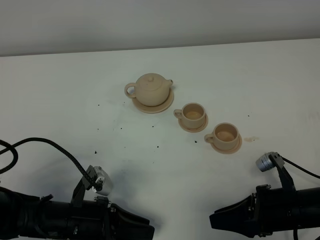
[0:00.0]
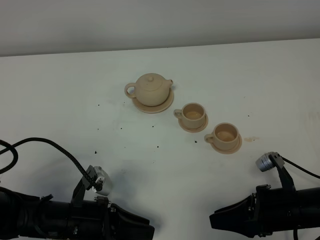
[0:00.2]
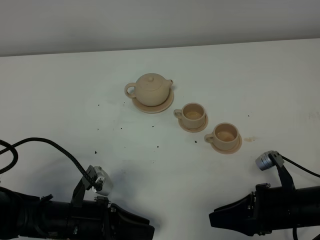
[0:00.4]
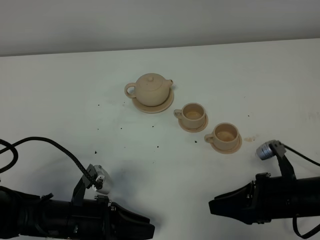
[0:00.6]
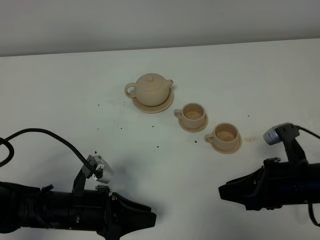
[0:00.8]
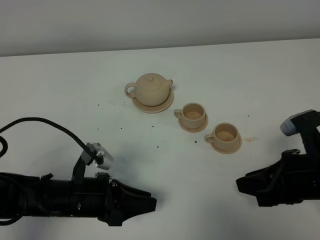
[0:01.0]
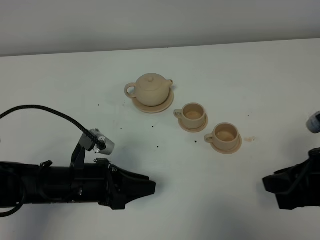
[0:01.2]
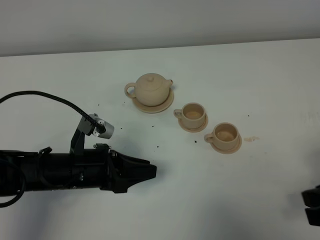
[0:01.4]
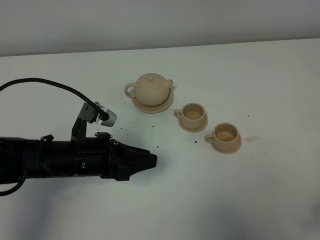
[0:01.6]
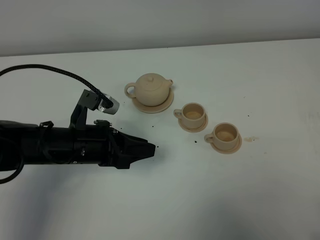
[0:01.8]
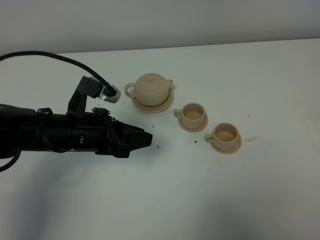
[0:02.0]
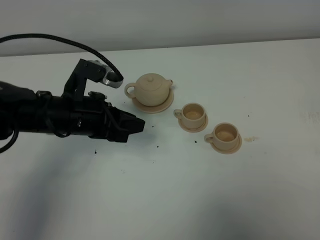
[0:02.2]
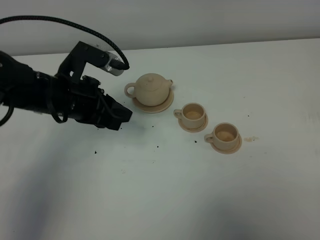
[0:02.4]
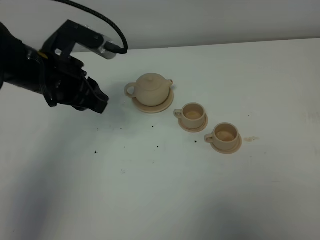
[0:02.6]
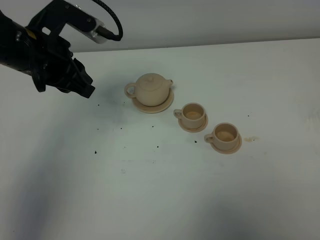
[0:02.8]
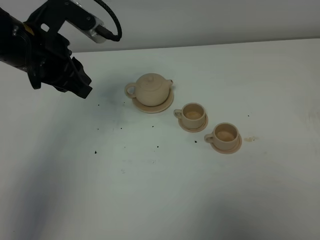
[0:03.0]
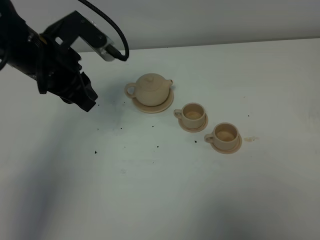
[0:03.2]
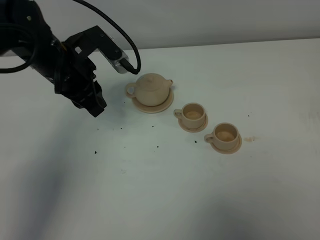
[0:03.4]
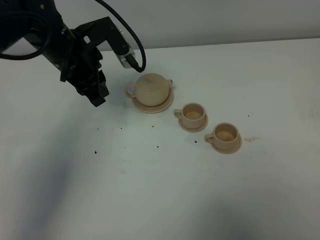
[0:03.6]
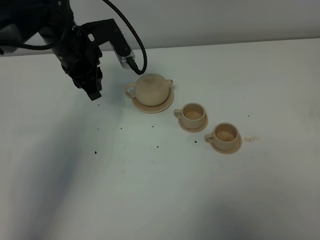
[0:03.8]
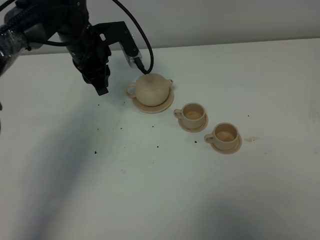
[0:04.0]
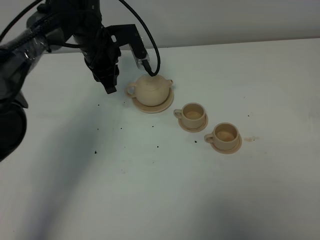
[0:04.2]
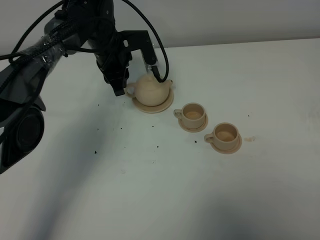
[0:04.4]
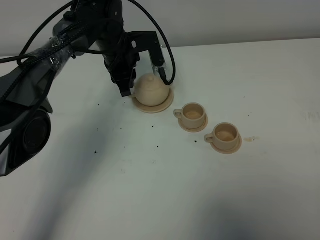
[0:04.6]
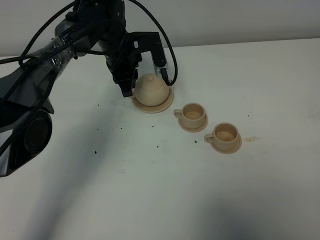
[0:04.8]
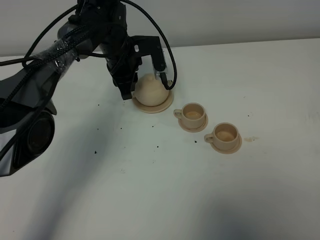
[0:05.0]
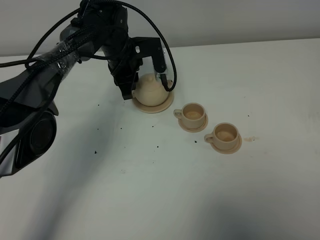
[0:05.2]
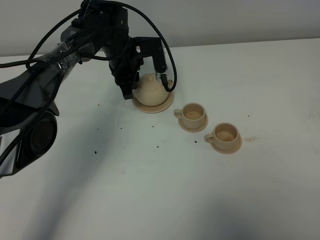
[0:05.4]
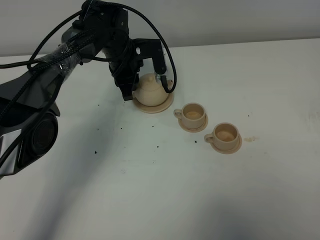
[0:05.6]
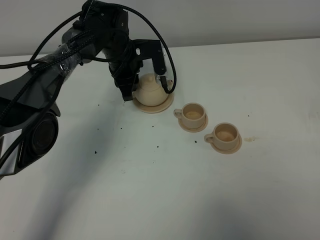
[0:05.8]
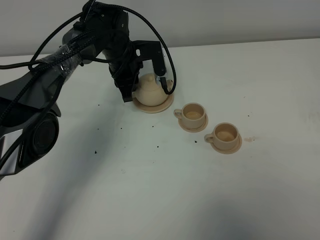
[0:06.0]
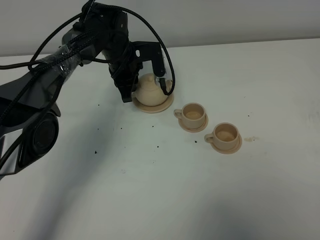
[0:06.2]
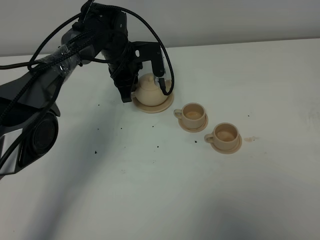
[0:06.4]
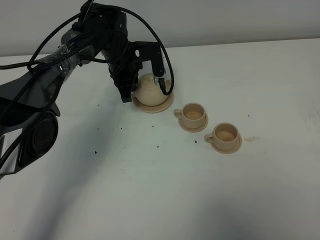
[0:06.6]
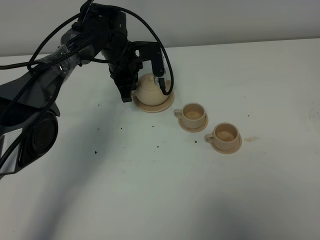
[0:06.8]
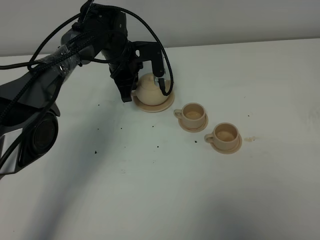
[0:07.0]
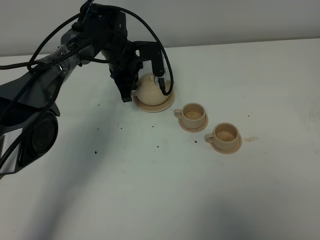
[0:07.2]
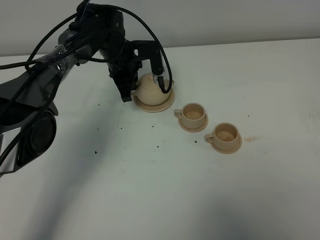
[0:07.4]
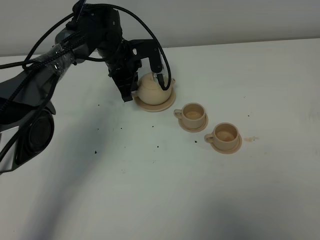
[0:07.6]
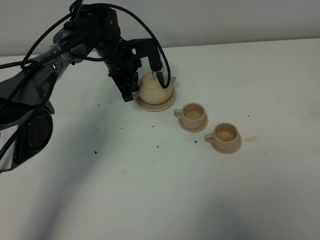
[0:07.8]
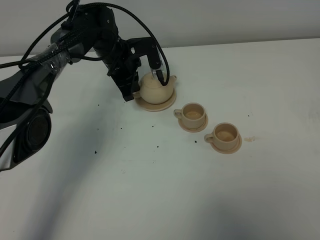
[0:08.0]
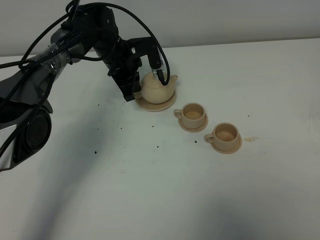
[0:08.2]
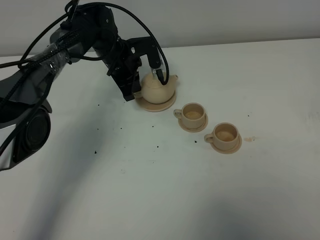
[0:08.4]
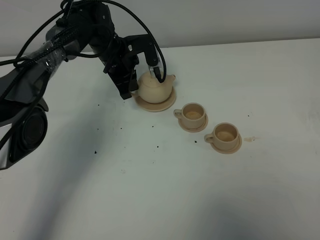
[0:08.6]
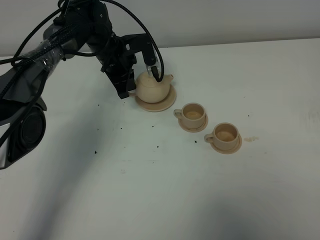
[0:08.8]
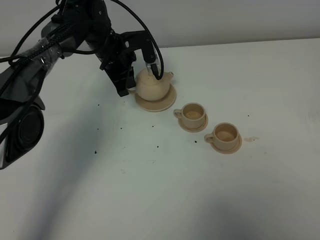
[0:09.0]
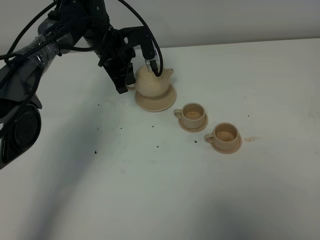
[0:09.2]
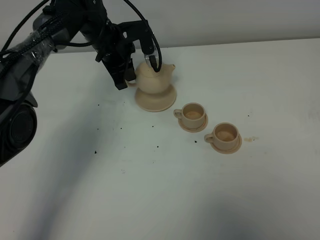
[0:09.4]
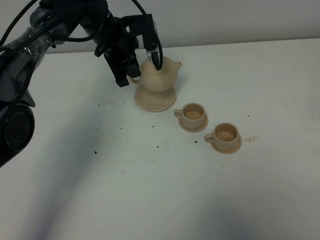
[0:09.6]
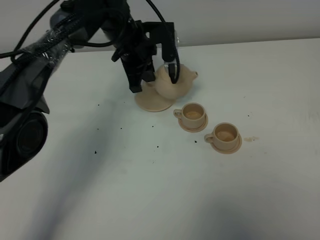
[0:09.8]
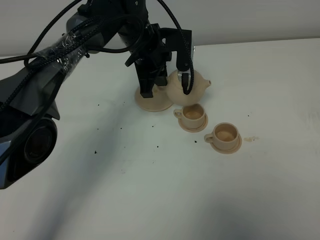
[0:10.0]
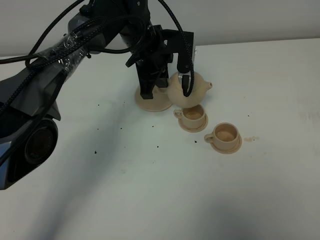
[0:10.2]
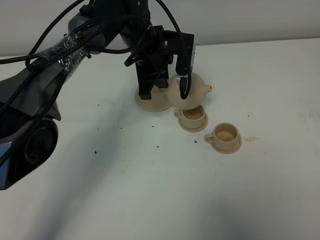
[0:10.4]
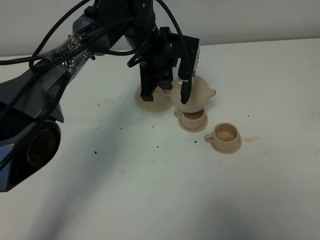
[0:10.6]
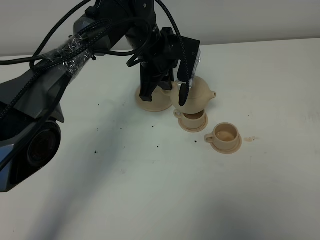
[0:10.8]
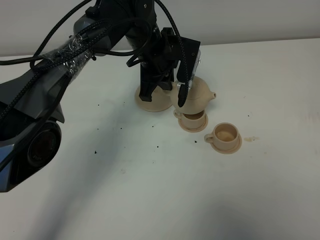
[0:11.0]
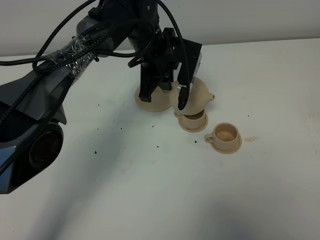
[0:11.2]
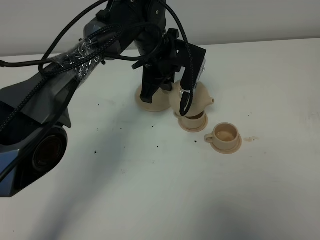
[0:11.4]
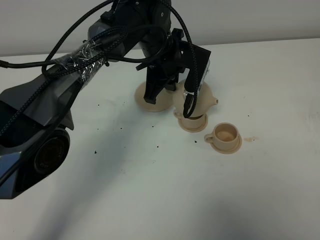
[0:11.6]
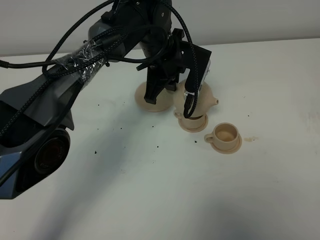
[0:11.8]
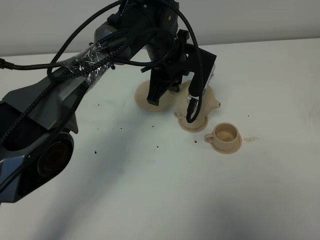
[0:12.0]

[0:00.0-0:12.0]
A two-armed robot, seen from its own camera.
Task of the whole recording: grasp the brown teapot and pour the tea into the two brown teacups one by one, put the brown teapot back in its original place.
Step, 0:00.0 to 0:08.8: Pick up the teapot with the left gripper.
0:00.0 to 0:01.6: The left gripper moves forward and upward, some 10 cm, while the right gripper moves upward, to the right and backward, about 20 cm.
0:01.6 to 0:03.0: The left gripper goes roughly 20 cm upward and forward; the right gripper moves backward, approximately 5 cm.
0:03.0 to 0:04.4: The left gripper is displaced forward, downward and to the right by approximately 20 cm.
0:04.4 to 0:06.0: The grippers stay close to where they were, moving slightly.
0:06.0 to 0:07.6: The left gripper closes.
0:07.6 to 0:09.0: There are only small adjustments of the grippers.
0:09.0 to 0:10.4: The left gripper heads to the right and backward, covering about 10 cm.
0:10.4 to 0:12.0: The right gripper closes its fingers.

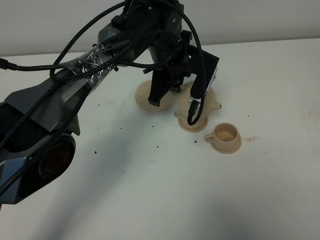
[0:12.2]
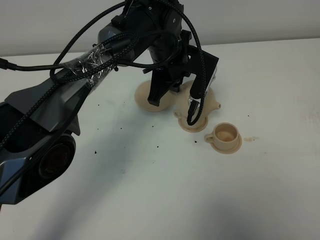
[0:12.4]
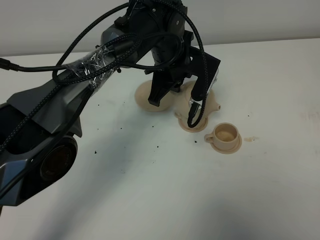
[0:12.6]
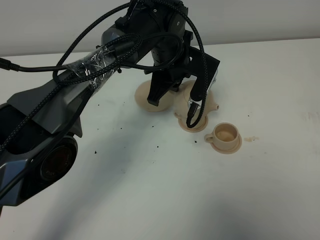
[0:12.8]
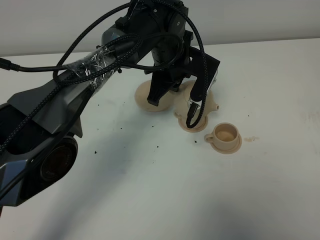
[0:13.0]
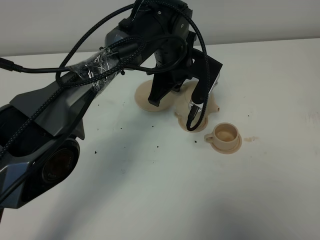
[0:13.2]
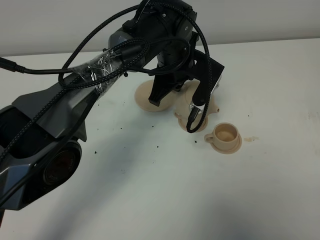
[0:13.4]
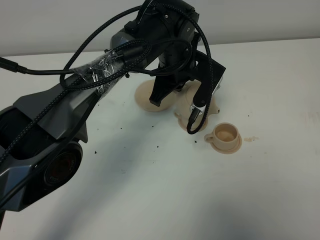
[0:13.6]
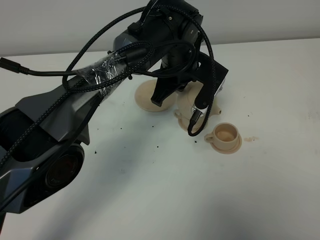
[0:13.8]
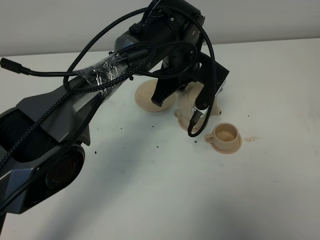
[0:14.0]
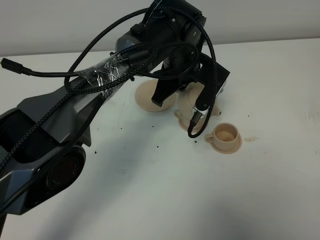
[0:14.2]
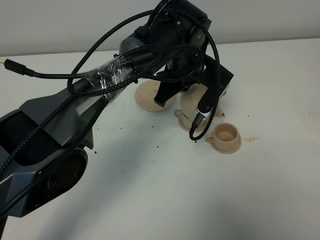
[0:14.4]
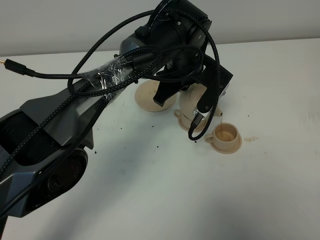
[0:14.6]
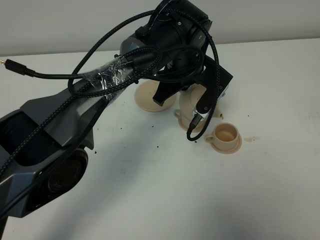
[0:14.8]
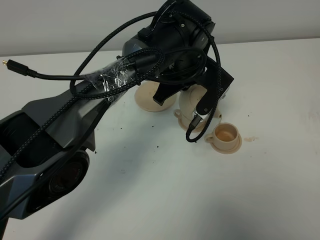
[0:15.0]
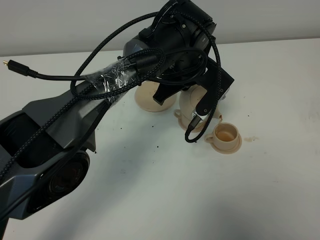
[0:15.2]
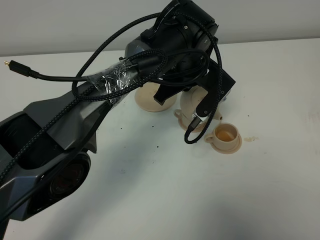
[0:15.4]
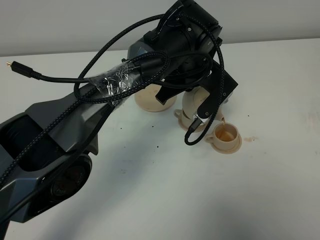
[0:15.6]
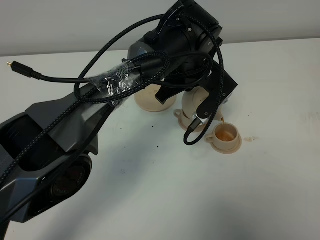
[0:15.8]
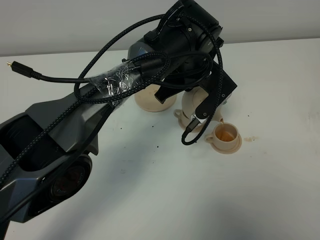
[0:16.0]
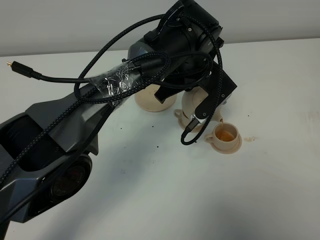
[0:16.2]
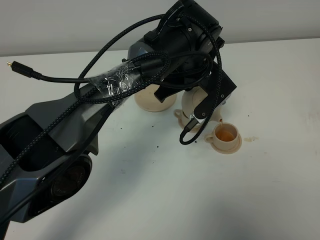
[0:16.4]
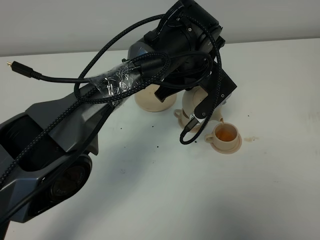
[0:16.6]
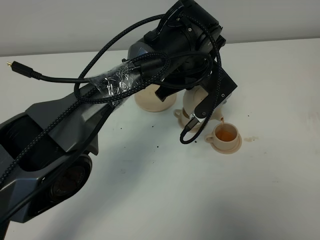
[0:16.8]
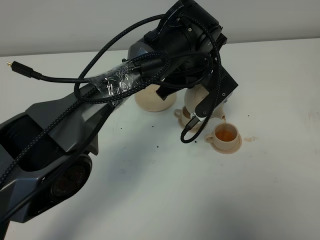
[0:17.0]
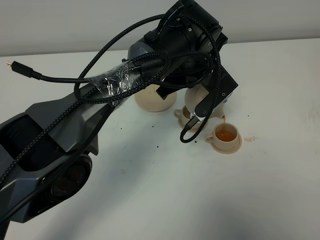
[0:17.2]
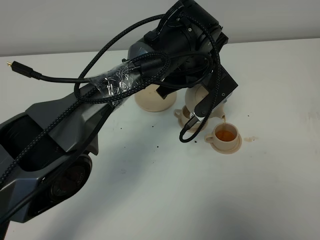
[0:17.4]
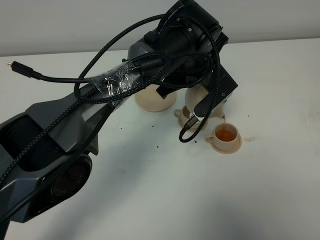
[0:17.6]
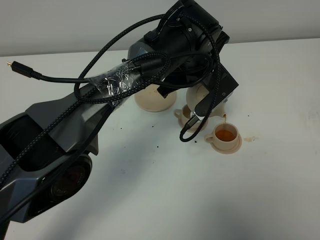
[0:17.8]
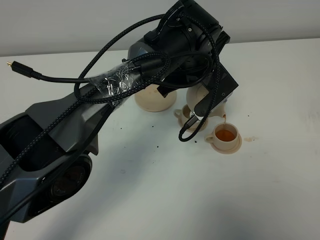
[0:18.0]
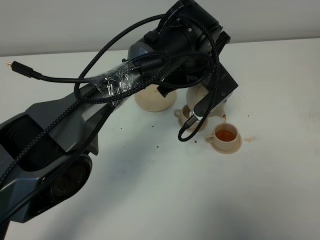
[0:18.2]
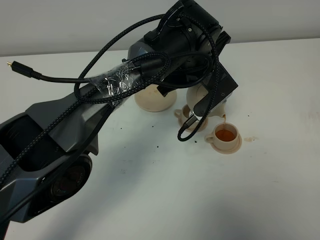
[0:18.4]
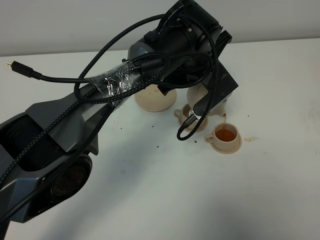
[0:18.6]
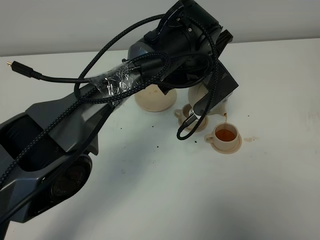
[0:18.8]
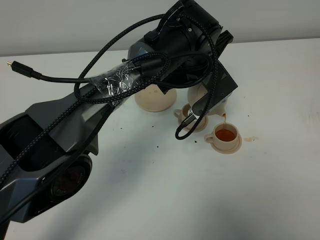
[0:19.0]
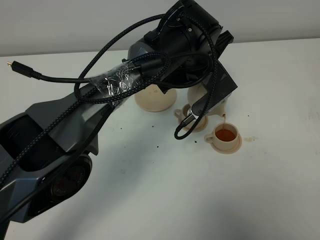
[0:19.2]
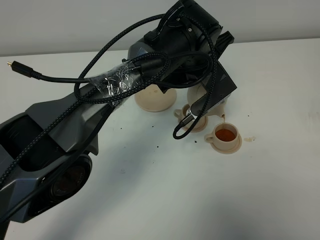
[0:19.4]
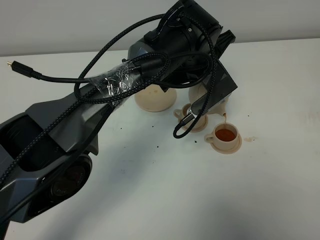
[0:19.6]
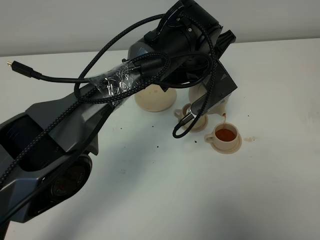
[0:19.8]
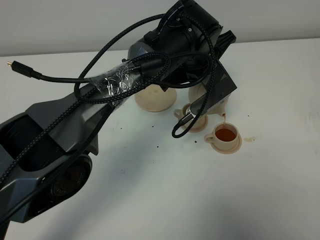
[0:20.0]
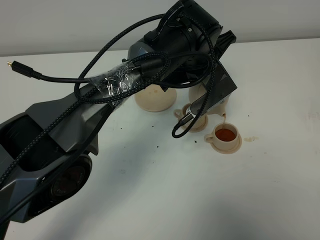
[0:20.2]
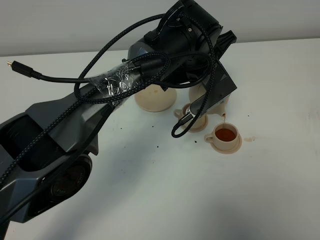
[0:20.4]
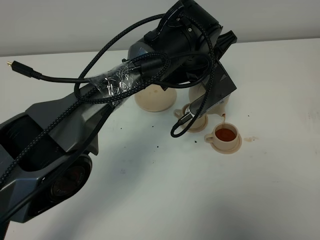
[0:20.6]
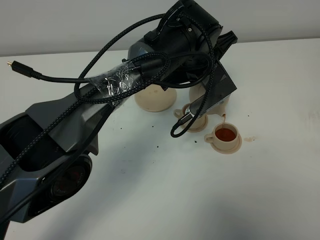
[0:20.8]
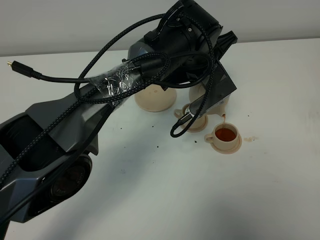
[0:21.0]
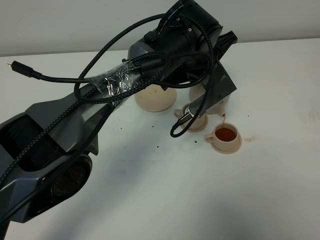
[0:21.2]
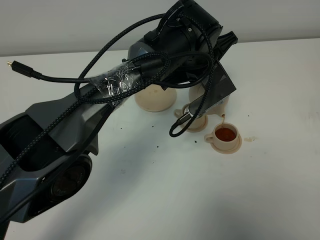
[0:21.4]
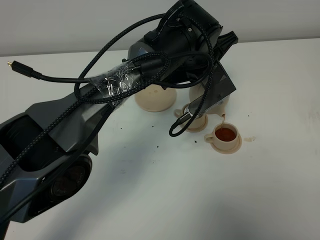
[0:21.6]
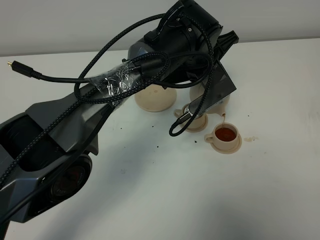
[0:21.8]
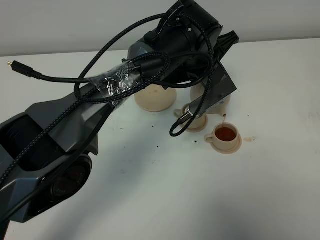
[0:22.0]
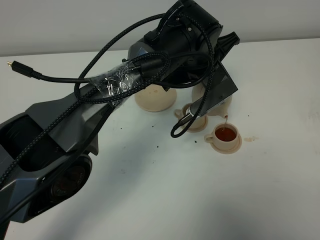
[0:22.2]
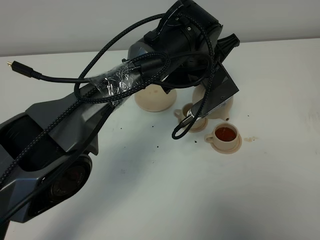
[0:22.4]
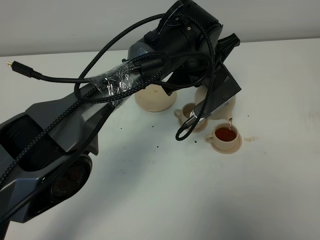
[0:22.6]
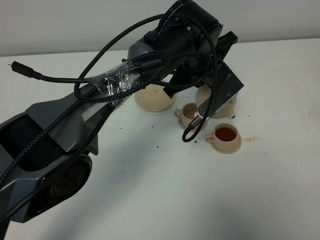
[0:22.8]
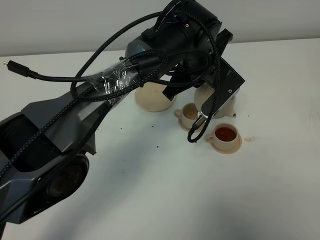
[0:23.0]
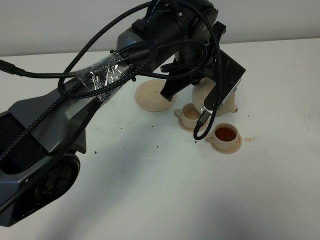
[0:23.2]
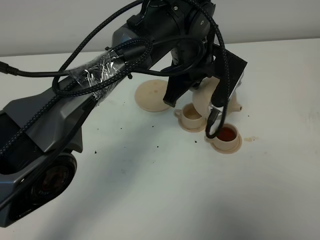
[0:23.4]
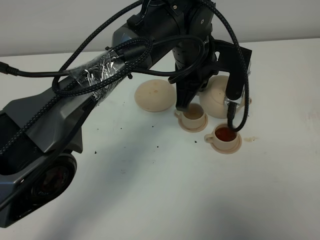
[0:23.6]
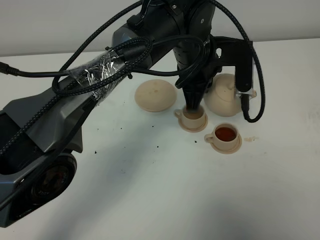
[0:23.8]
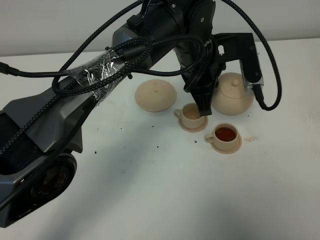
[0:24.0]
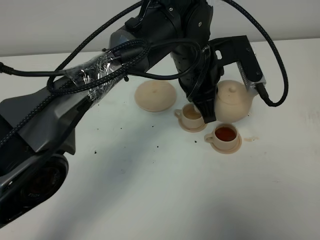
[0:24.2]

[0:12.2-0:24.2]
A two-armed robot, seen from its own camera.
Task of the whole recording: grasp the brown teapot and pour the tea into the two brown teacups one by one, put the brown teapot back in its original place.
Step, 0:12.2 to 0:23.2: Pour tea into the teacup with the left gripper.
0:12.2 to 0:13.8: The grippers stay close to where they were, moving slightly.
0:13.8 to 0:16.6: The grippers move only a little.
0:16.6 to 0:19.8: The grippers stay close to where they were, moving slightly.
0:19.8 to 0:22.6: Both grippers stay put.
